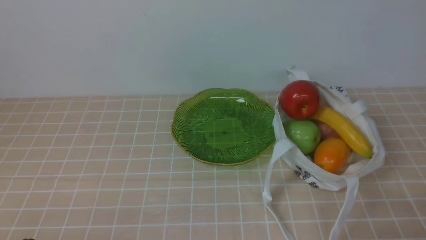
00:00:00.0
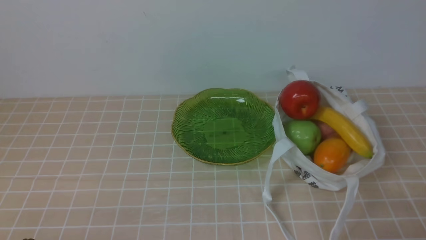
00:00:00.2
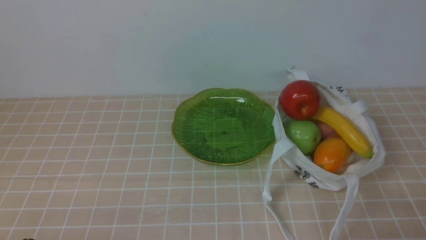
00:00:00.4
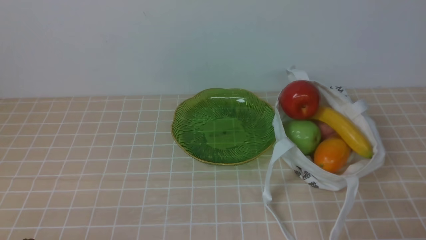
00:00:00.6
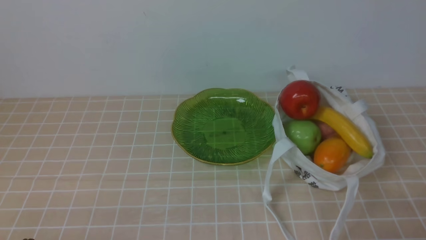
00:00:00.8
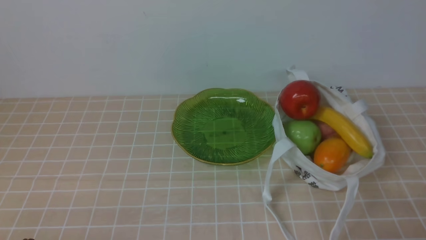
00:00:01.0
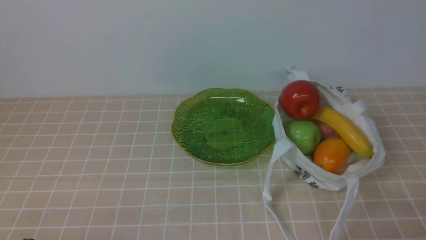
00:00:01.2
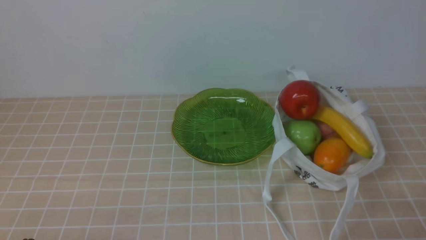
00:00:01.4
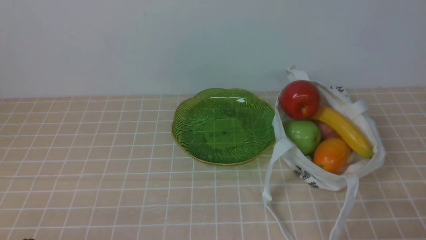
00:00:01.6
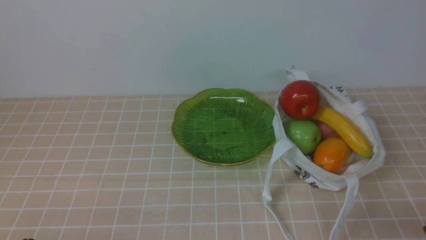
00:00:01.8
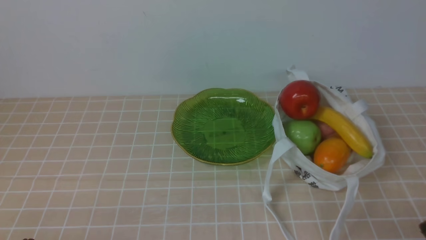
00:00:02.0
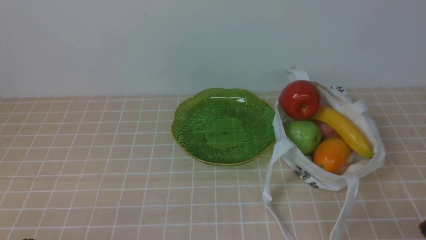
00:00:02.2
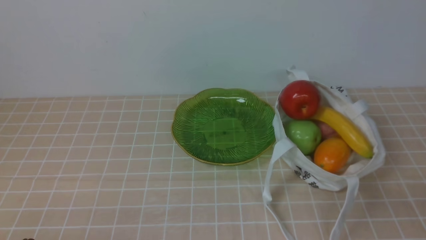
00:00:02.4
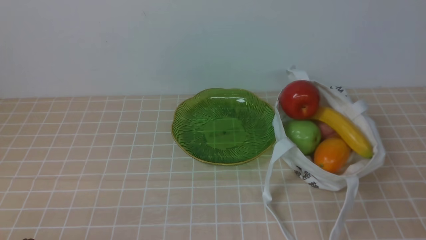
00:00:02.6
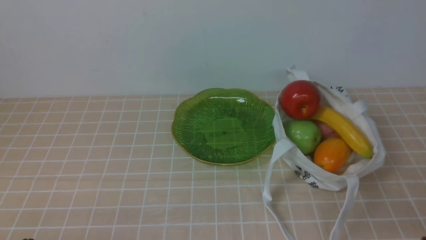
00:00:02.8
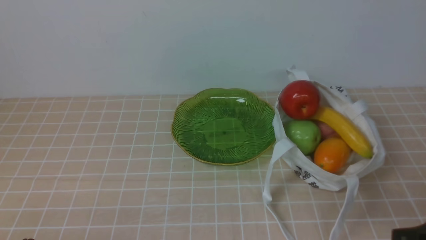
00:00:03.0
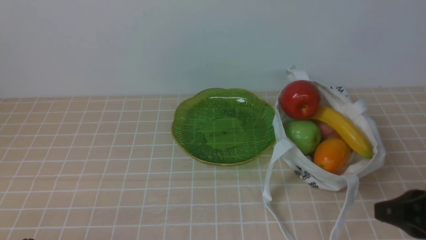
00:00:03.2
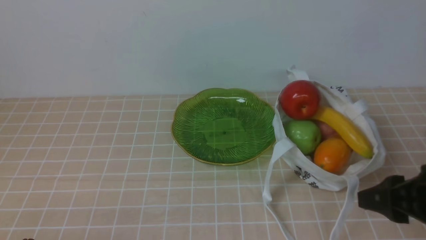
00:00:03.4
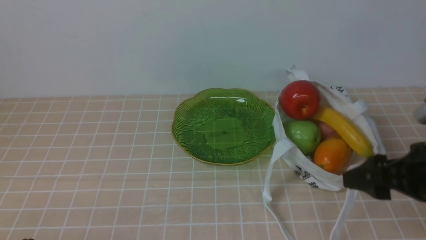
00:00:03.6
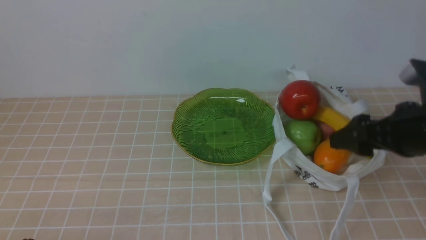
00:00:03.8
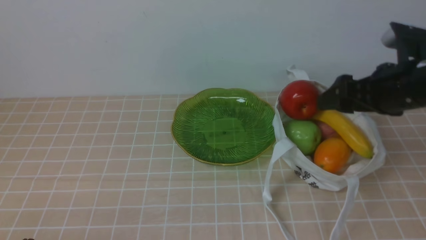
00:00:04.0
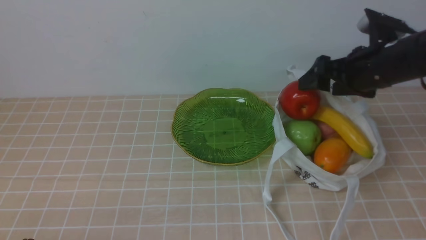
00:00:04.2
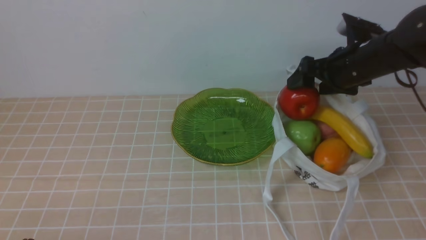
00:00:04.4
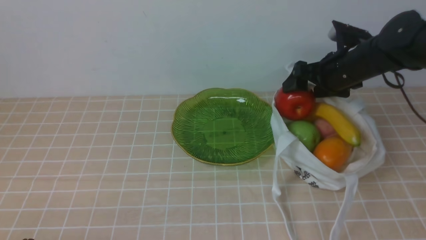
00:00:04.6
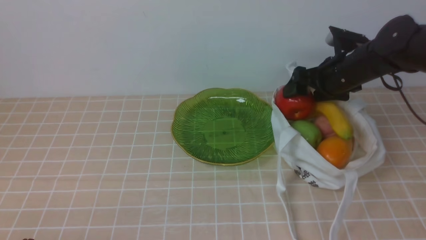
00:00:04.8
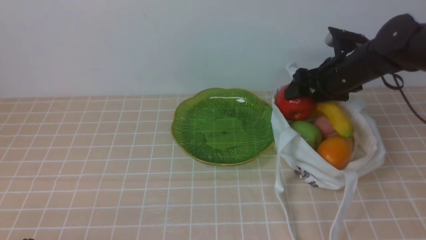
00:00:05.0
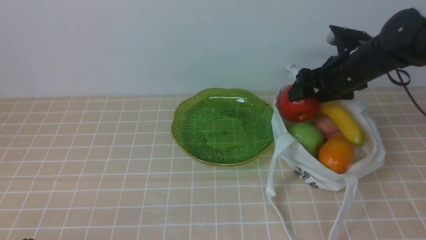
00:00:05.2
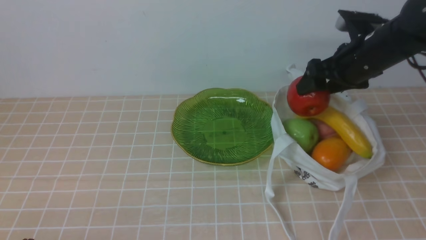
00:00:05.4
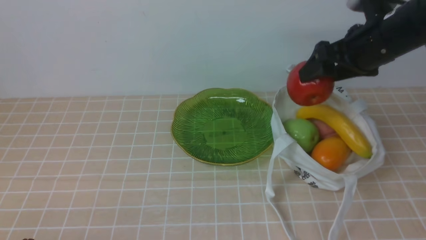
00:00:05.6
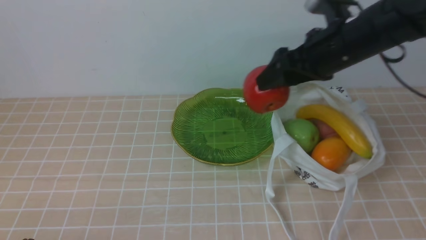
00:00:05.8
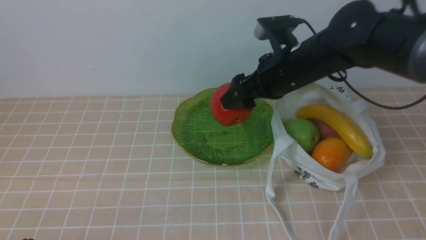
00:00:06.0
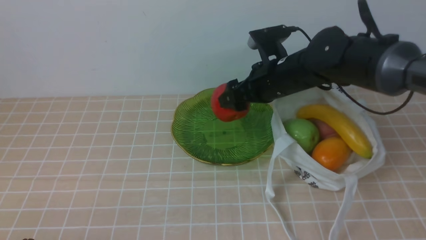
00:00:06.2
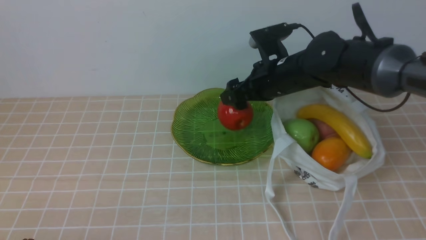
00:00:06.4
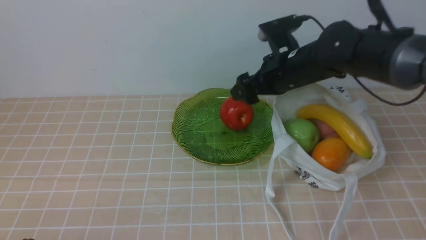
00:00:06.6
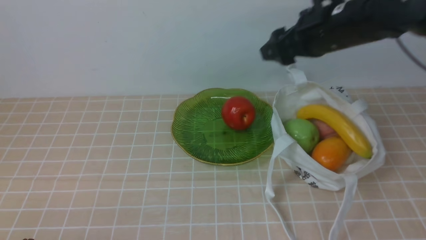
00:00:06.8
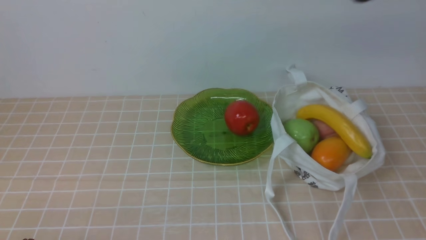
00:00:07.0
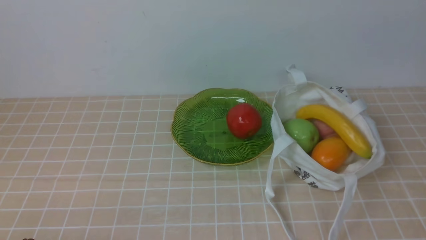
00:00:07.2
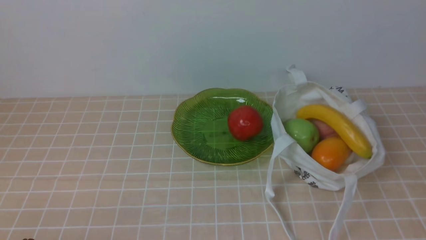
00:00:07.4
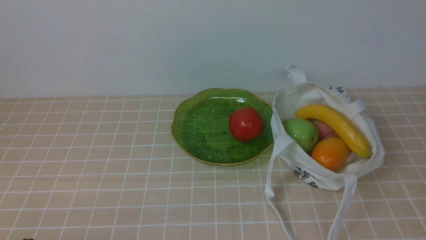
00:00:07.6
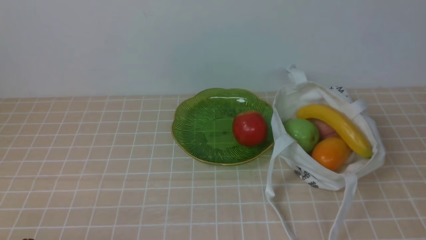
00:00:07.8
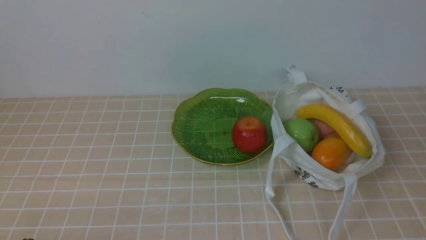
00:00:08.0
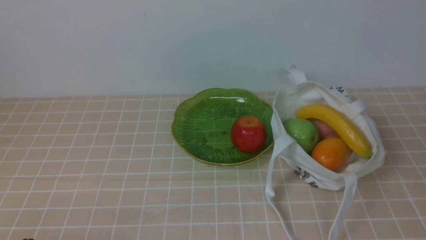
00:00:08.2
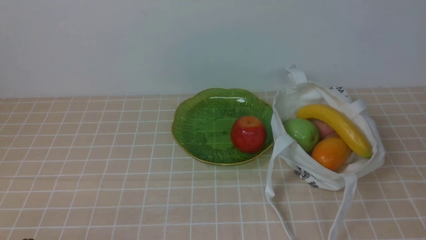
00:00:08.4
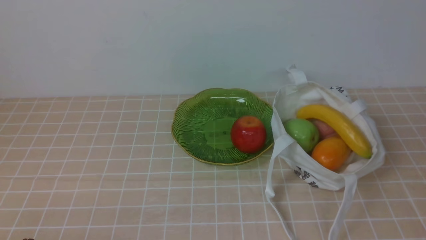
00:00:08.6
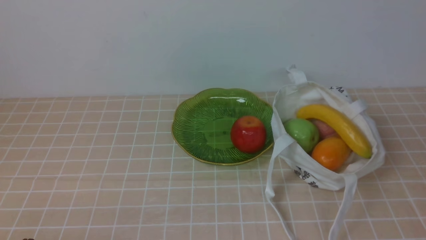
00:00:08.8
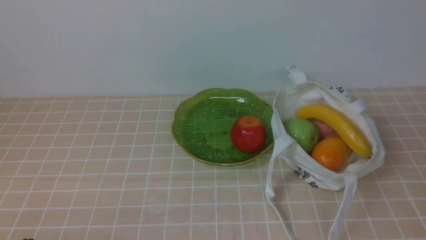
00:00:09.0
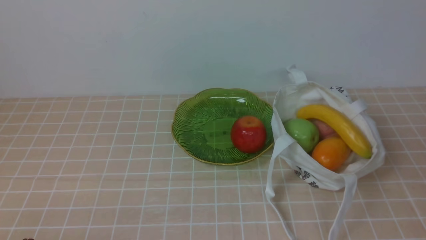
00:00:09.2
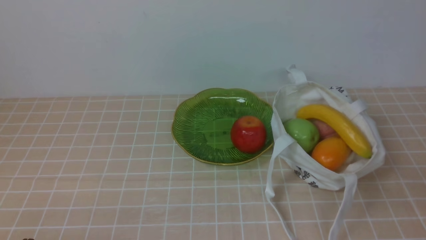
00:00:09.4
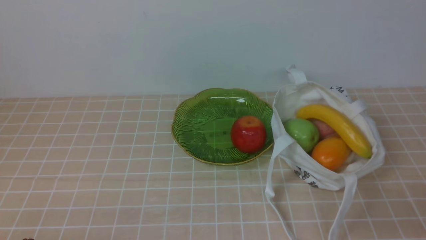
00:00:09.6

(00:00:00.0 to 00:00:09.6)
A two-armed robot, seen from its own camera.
Step, 00:00:00.0 - 00:00:05.0: use the right arm to grab an apple from the bag.
Step, 00:00:05.4 - 00:00:06.4: use the right arm to put the apple into the empty plate on the left.
00:00:01.6 - 00:00:03.2: The right gripper heads forward and upward, covering roughly 10 cm.
00:00:03.2 - 00:00:04.8: The right gripper moves forward, roughly 30 cm, and opens its fingers.
00:00:04.8 - 00:00:06.4: The right gripper travels to the left by some 10 cm.
00:00:06.4 - 00:00:08.0: The right gripper shifts some 40 cm backward and to the right, and closes its fingers.

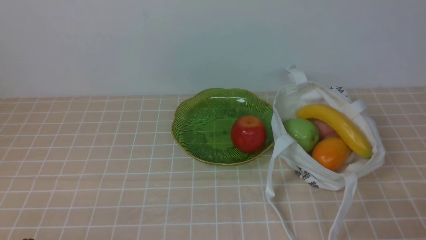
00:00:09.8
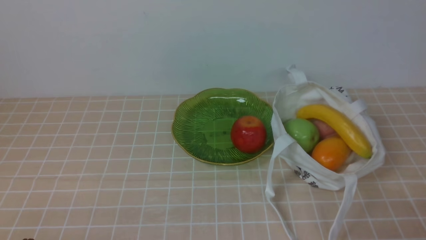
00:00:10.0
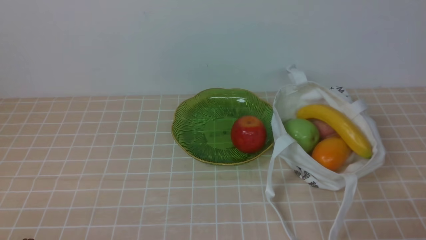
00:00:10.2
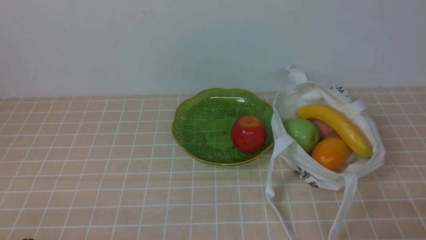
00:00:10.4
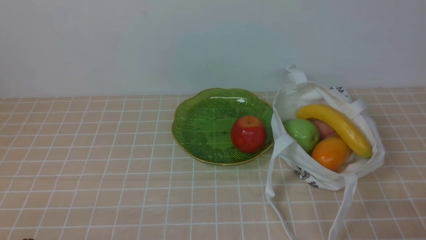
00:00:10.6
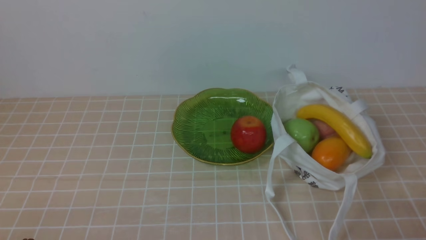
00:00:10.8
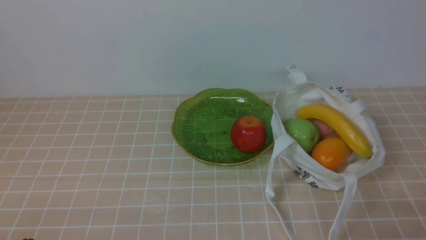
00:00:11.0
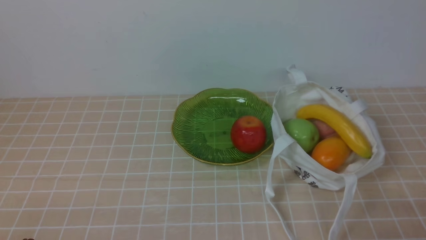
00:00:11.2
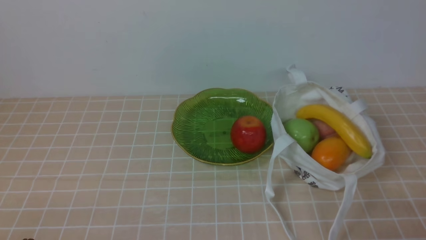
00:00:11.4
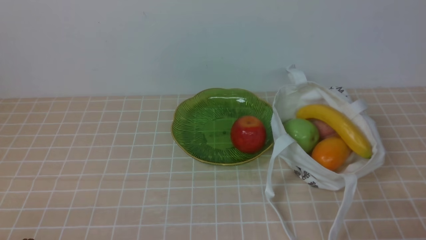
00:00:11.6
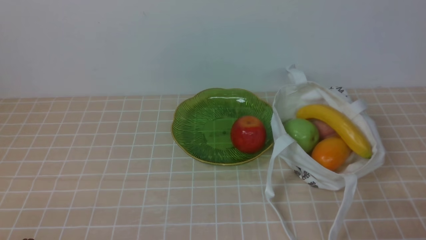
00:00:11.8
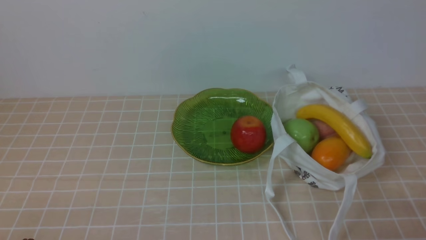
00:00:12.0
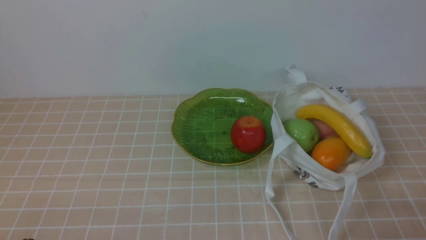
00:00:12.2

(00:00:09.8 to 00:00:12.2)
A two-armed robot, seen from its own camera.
00:00:09.8 - 00:00:12.2: Neither gripper changes place.

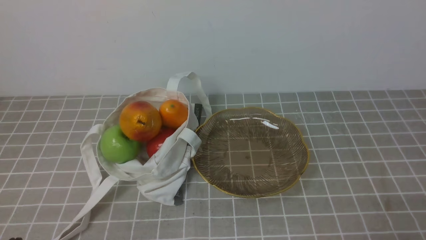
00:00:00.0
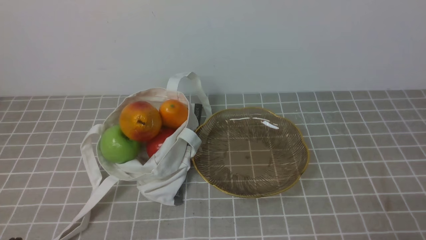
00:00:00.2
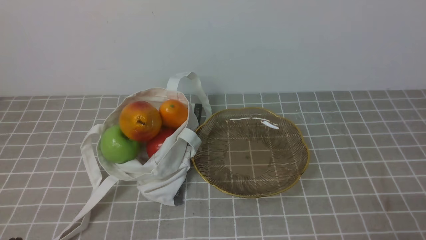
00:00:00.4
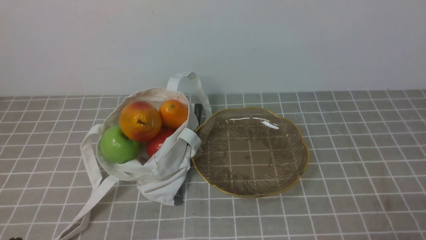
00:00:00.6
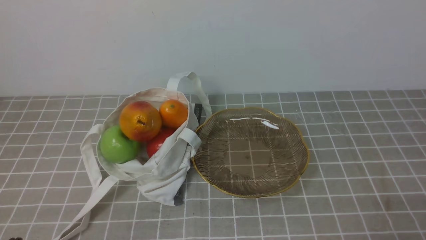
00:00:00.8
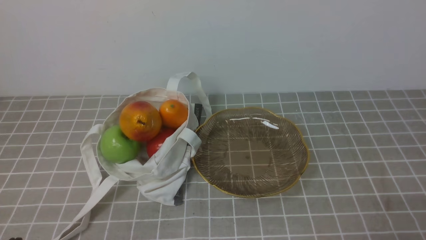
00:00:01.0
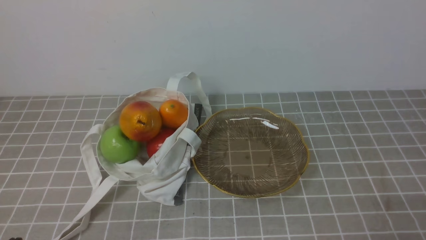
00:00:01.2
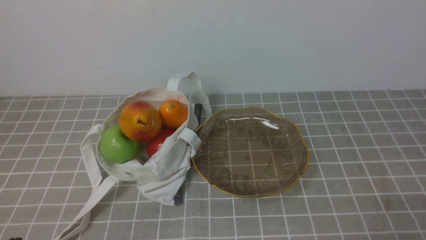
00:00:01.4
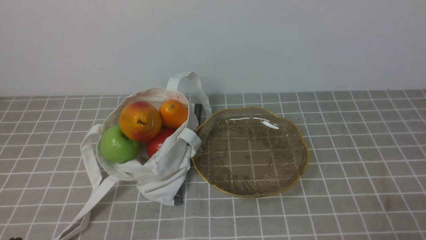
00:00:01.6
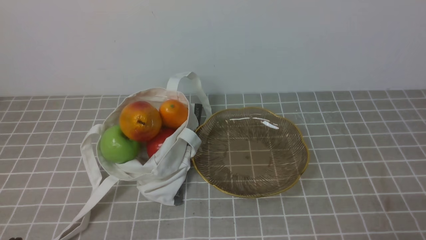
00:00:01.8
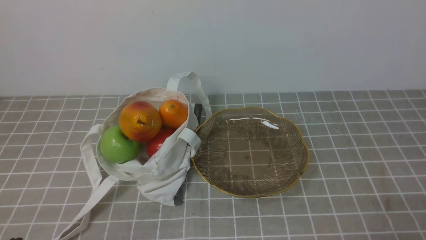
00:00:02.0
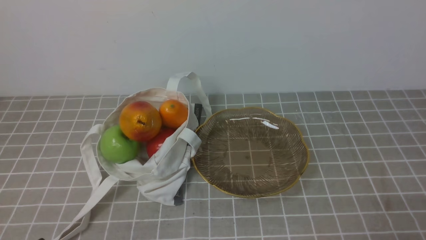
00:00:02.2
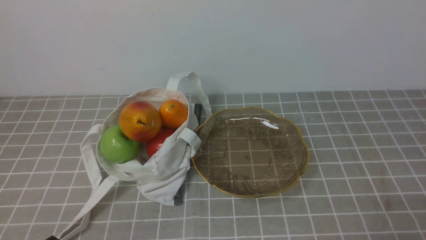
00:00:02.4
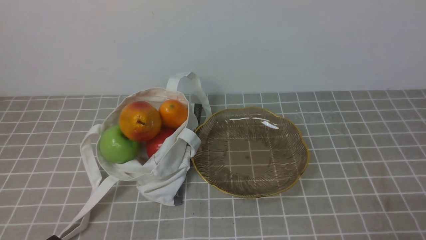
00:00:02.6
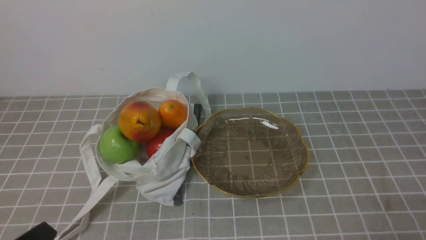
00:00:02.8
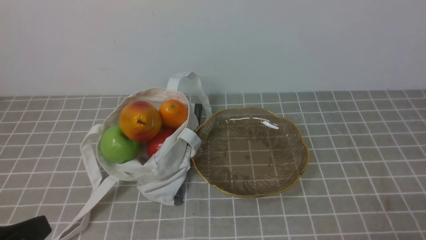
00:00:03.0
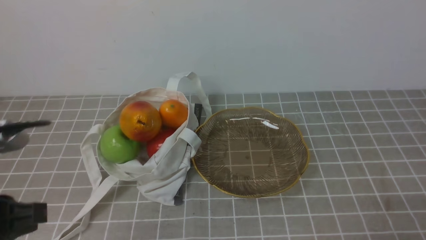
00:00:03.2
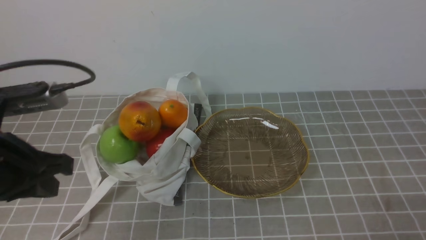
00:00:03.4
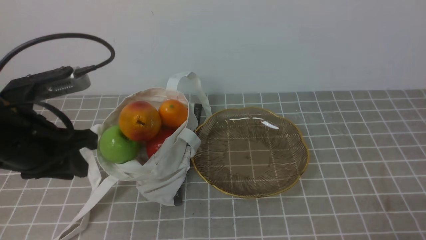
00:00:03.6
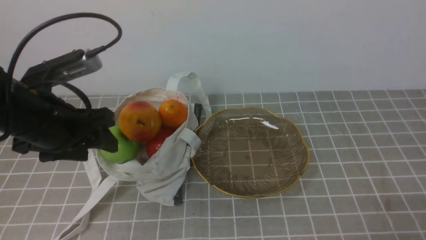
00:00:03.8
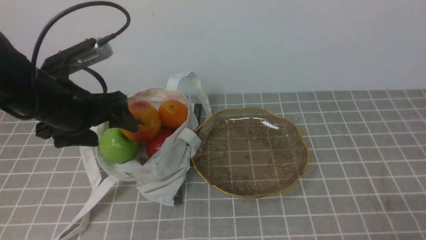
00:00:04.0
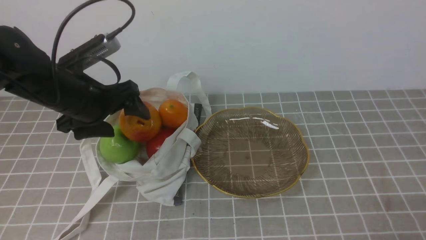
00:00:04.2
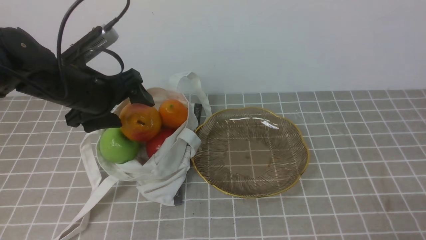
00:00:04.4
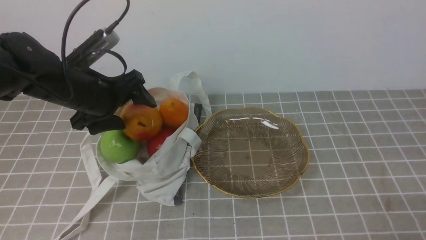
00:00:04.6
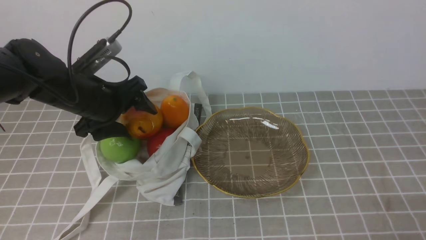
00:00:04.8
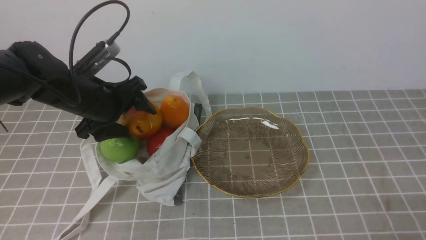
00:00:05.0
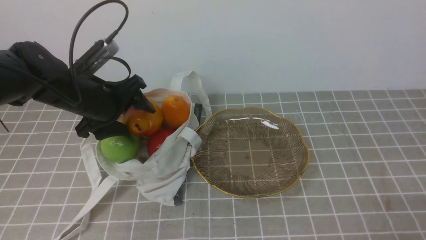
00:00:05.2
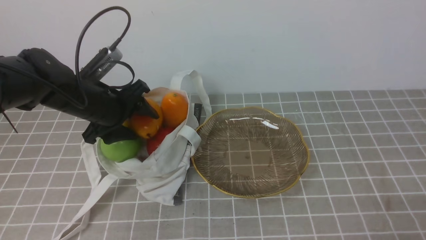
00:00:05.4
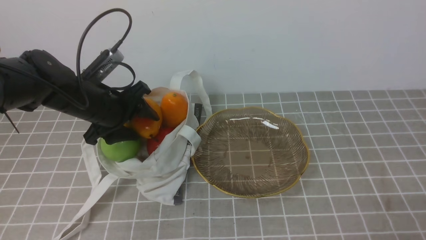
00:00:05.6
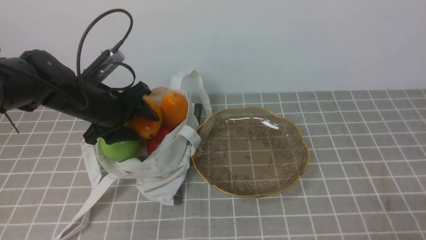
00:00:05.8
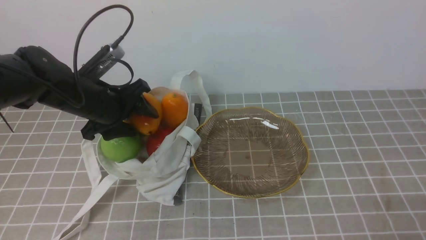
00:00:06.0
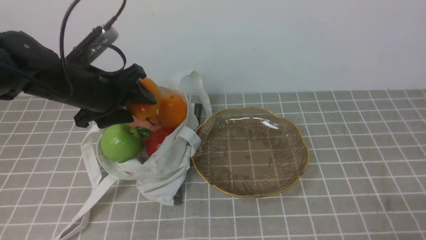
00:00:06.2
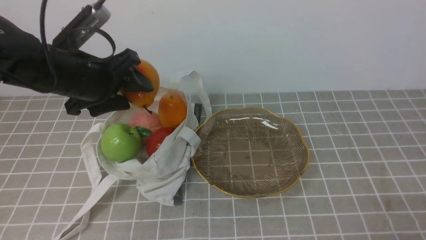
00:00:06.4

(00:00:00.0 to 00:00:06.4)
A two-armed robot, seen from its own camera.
Step, 00:00:00.0 - 00:00:06.2: use the left arm to grab a pear from the bag.
00:00:00.0 - 00:00:01.6: Both grippers stay put.
00:00:01.6 - 00:00:03.2: The left gripper travels upward and forward by roughly 15 cm.
00:00:03.2 - 00:00:04.8: The left gripper moves forward, approximately 25 cm, and opens up.
00:00:04.8 - 00:00:06.4: The left gripper travels upward by some 5 cm.
